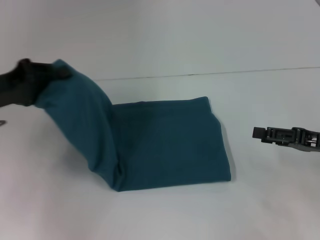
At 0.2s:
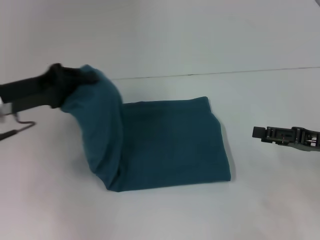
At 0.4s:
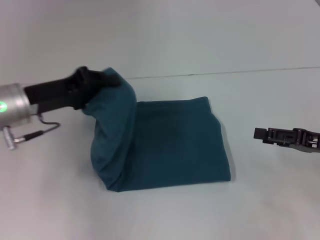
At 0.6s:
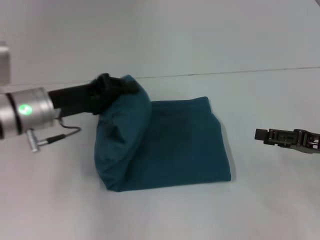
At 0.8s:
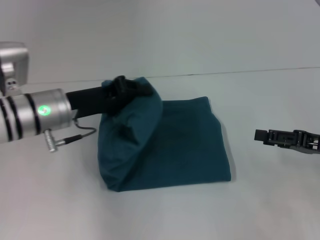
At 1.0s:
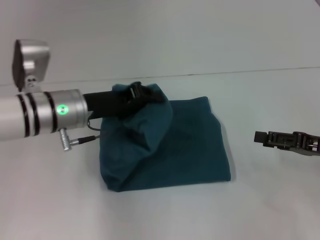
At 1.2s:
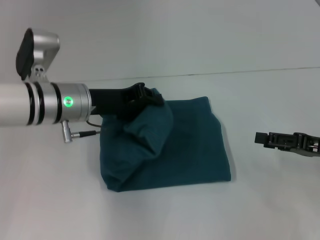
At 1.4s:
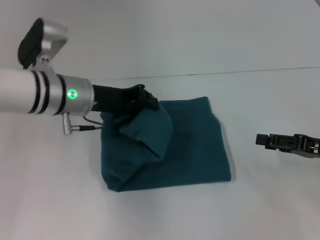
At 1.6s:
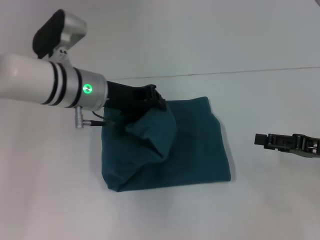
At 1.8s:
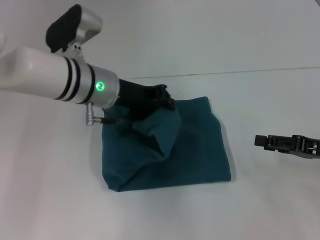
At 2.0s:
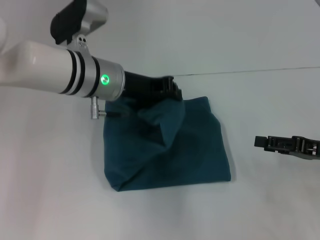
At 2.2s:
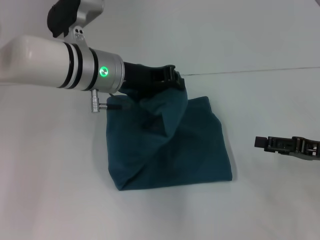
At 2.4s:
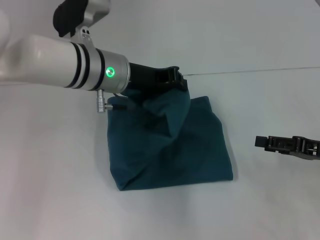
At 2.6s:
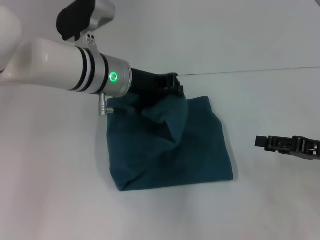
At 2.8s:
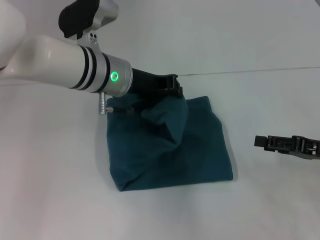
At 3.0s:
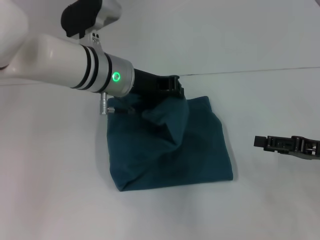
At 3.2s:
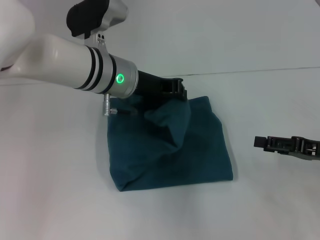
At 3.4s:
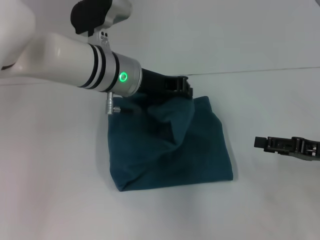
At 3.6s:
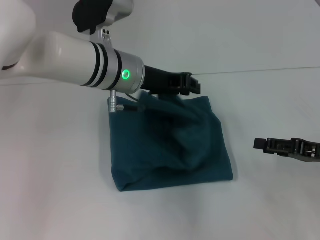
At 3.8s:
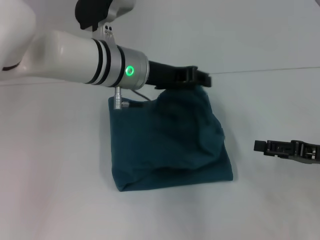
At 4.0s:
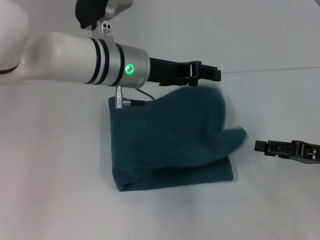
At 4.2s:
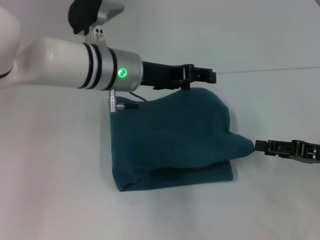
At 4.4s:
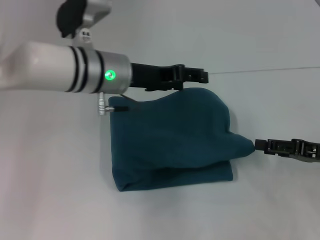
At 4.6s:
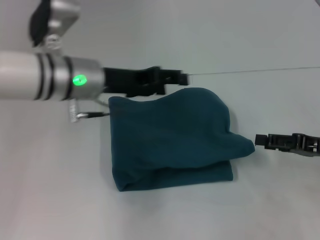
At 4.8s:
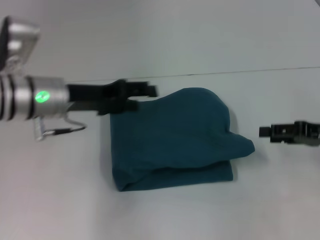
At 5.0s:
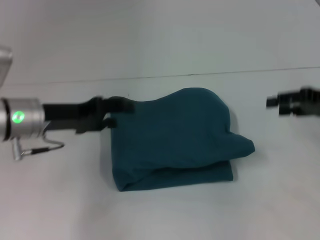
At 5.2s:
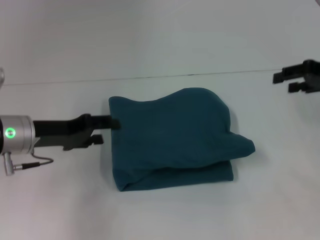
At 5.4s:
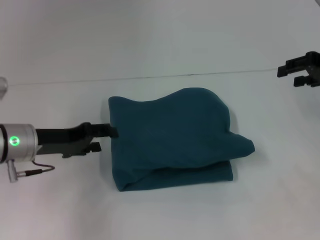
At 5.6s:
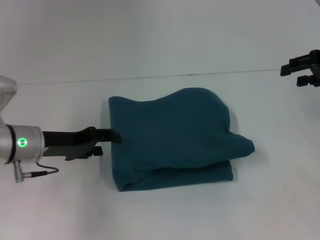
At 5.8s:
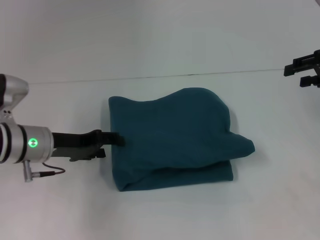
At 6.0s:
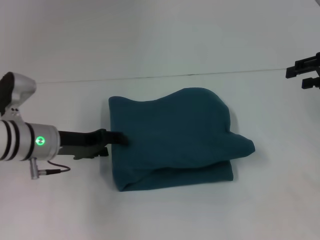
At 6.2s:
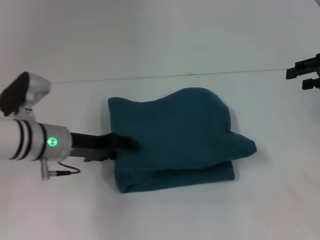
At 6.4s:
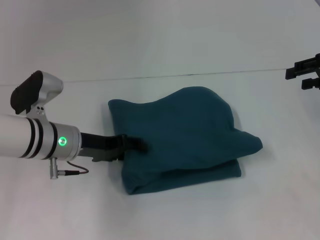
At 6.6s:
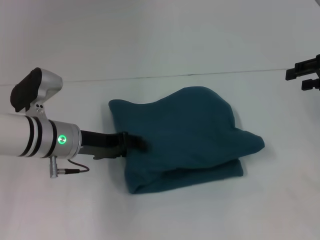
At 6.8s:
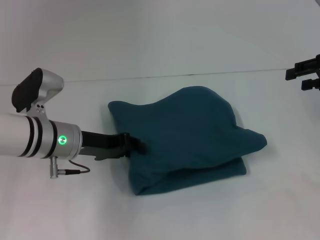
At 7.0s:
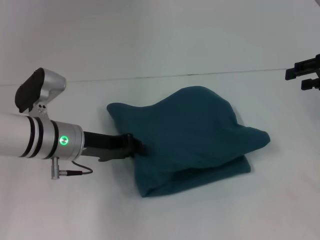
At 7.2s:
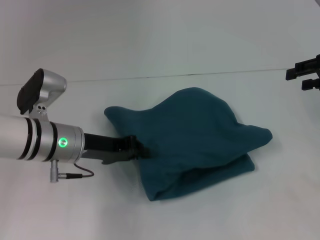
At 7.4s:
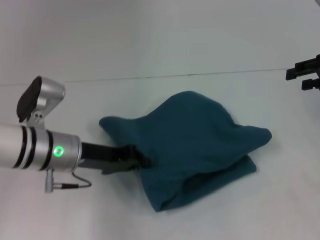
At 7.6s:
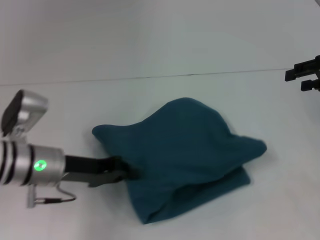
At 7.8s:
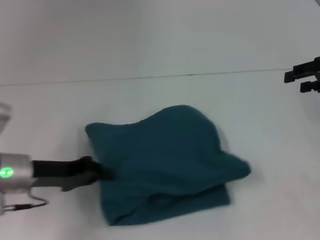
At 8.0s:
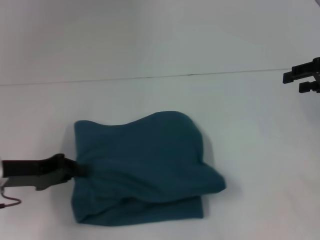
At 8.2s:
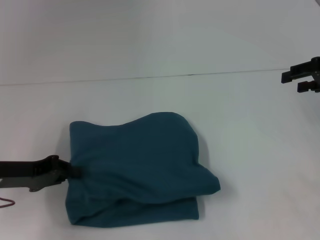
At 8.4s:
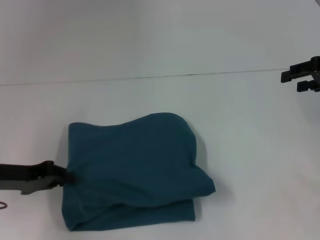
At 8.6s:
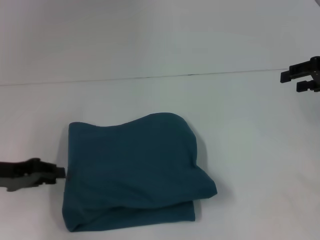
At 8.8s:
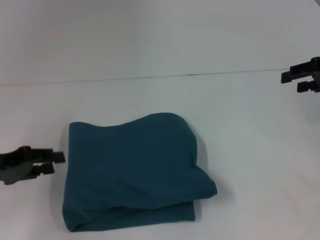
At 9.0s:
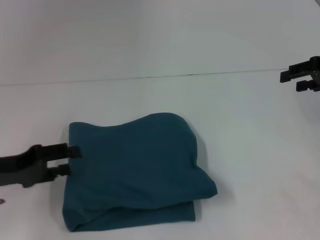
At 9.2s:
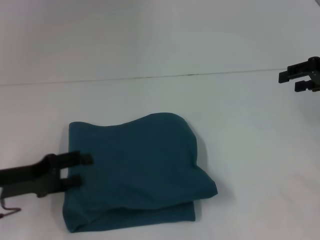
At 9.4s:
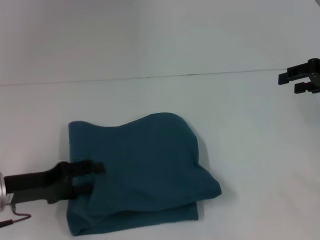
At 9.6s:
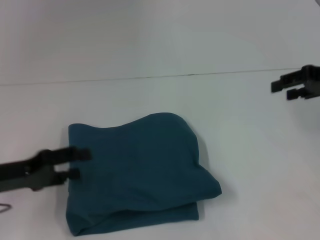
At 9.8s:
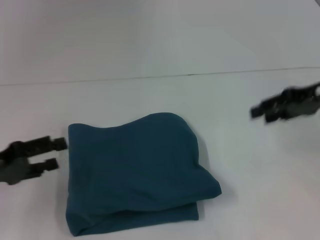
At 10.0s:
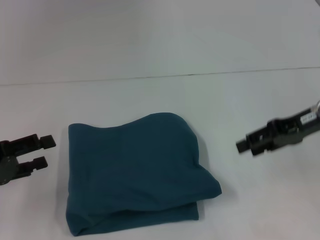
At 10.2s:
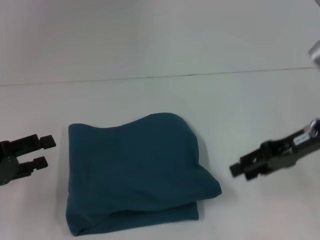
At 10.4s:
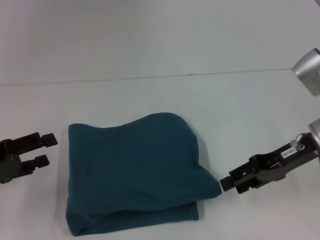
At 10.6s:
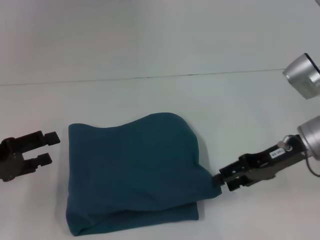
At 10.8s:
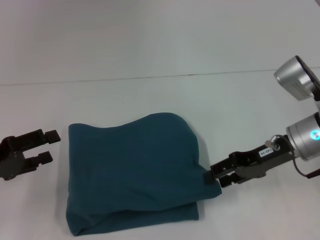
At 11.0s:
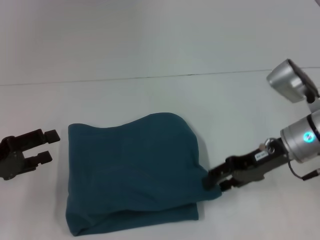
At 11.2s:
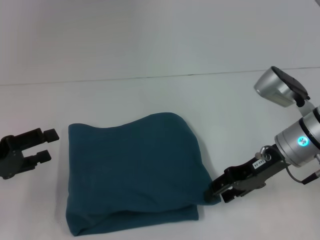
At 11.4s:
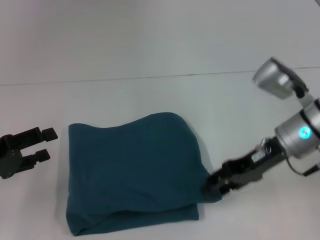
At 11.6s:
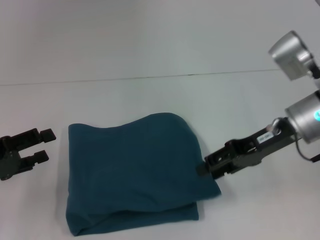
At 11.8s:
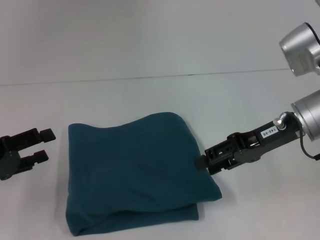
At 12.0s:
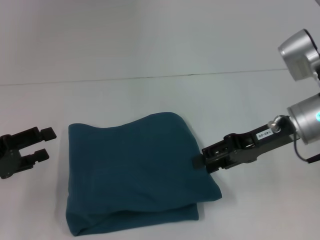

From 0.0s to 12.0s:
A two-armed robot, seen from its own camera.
Step, from 0.0s to 4.4s: Fold the clothes to the left.
From 0.0s to 1.6s: The left gripper goes approximately 15 cm to the right.
From 1.6s to 3.0s: The grippers stay close to where they were, moving slightly.
From 3.0s to 4.4s: The left gripper opens.
From 4.4s to 6.0s: The right gripper heads upward and forward, covering some 15 cm; the left gripper heads to the left and downward, covering approximately 15 cm.
From 6.0s to 7.6s: The left gripper closes its fingers.
From 7.6s to 9.0s: The left gripper goes about 10 cm to the left, and opens its fingers.
From 9.0s to 10.4s: The left gripper opens up; the right gripper is displaced to the left, downward and backward by roughly 15 cm.
From 10.4s to 12.0s: There are only small adjustments of the grippers.

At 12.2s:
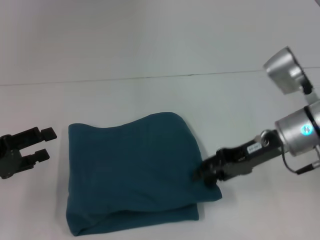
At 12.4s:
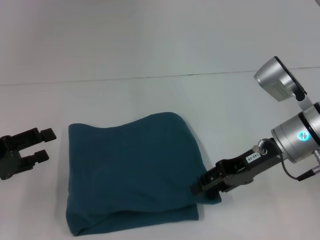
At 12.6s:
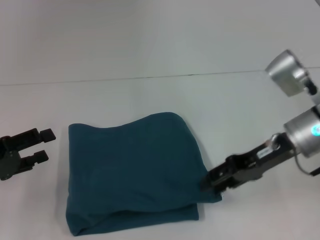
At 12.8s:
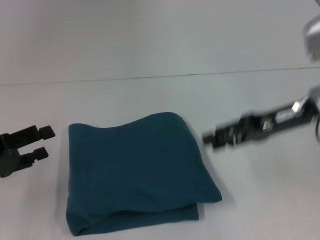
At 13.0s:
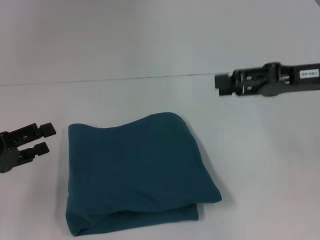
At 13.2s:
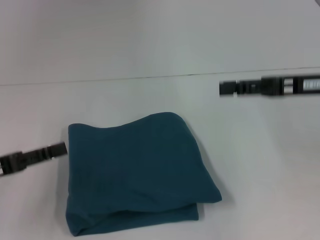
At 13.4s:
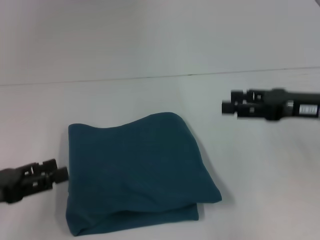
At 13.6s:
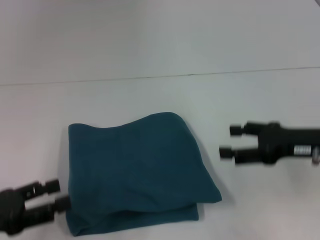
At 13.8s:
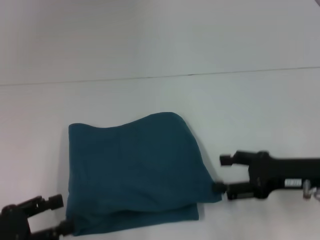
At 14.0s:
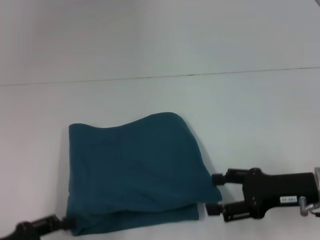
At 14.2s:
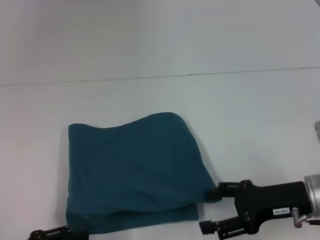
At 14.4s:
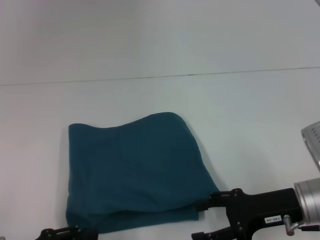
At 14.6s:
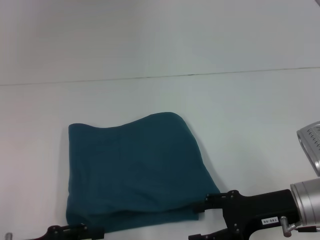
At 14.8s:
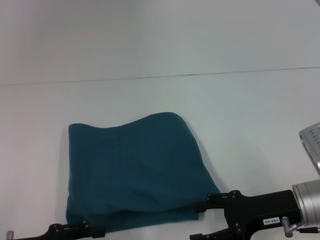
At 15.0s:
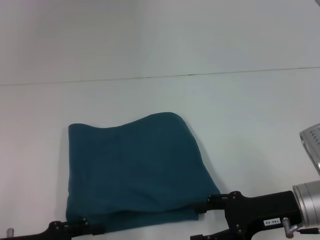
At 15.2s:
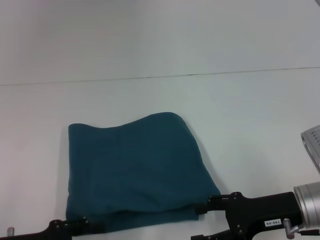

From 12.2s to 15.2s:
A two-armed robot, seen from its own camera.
From 12.2s to 13.8s: The right gripper moves backward and to the right, about 10 cm, and moves some 5 cm upward and comes back, while the left gripper travels backward by about 10 cm.
From 13.8s to 15.2s: There are only small adjustments of the grippers.

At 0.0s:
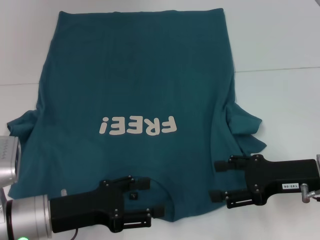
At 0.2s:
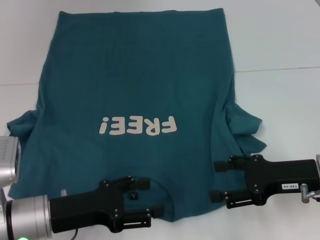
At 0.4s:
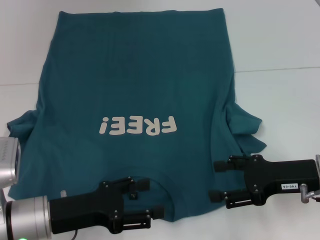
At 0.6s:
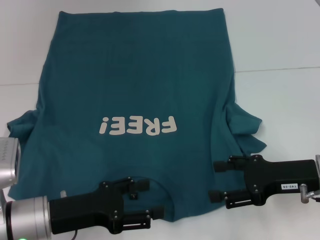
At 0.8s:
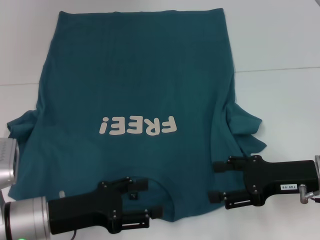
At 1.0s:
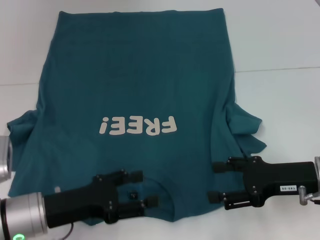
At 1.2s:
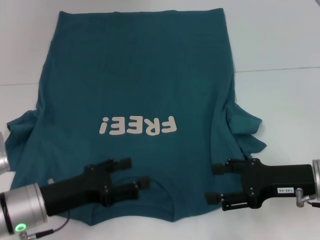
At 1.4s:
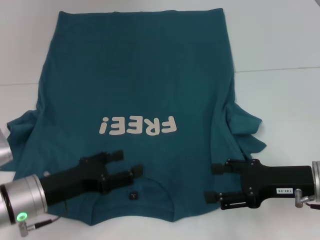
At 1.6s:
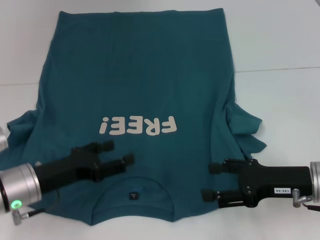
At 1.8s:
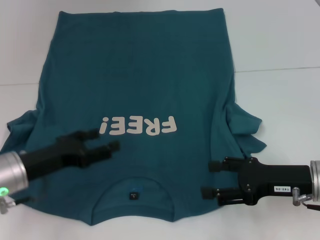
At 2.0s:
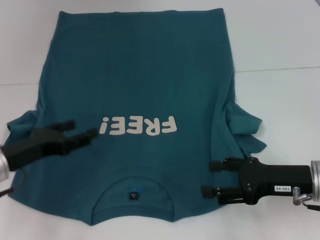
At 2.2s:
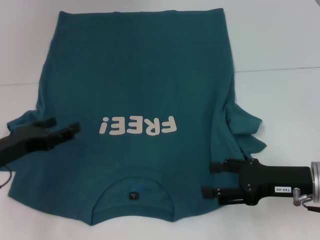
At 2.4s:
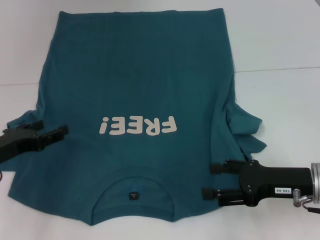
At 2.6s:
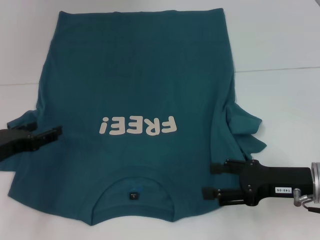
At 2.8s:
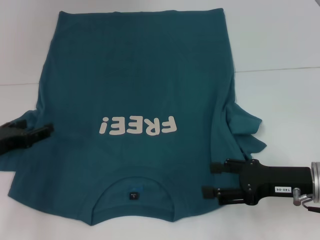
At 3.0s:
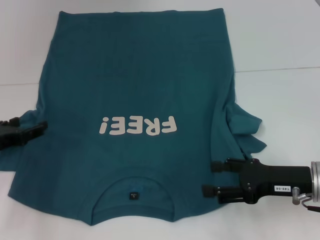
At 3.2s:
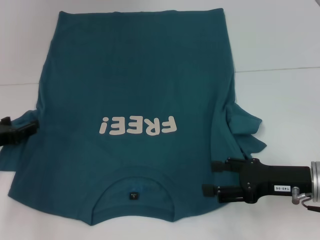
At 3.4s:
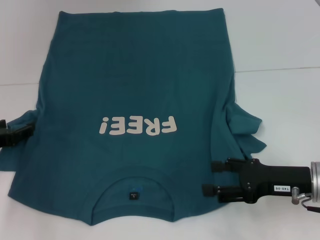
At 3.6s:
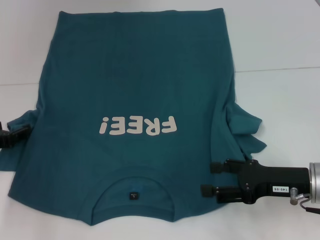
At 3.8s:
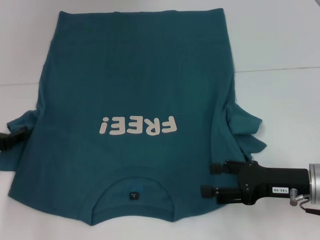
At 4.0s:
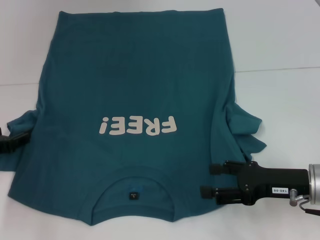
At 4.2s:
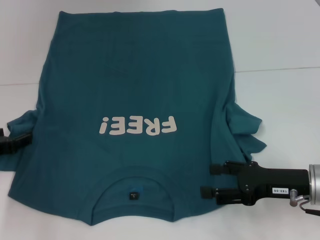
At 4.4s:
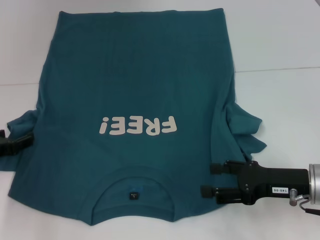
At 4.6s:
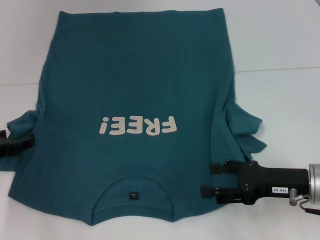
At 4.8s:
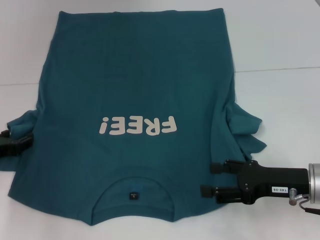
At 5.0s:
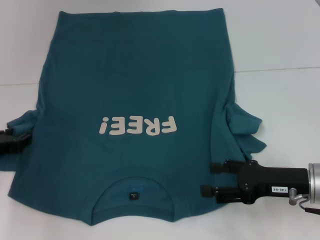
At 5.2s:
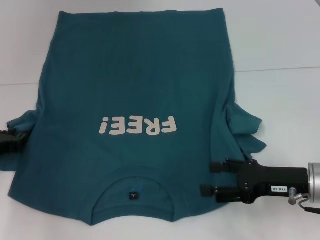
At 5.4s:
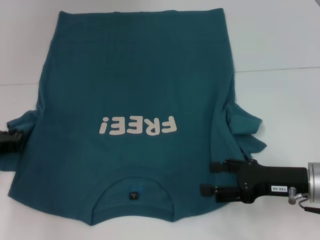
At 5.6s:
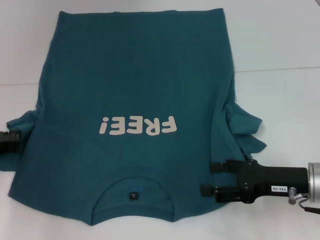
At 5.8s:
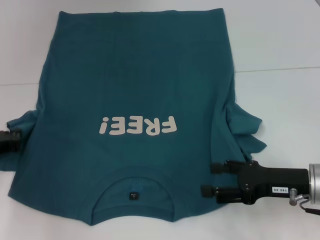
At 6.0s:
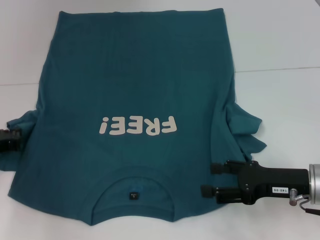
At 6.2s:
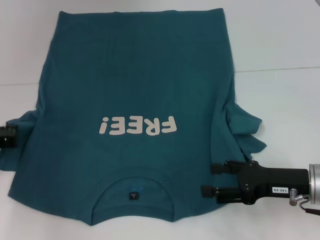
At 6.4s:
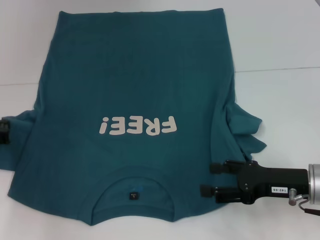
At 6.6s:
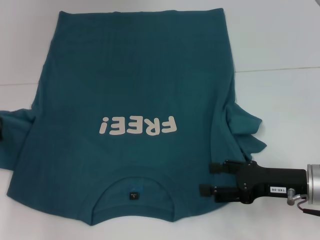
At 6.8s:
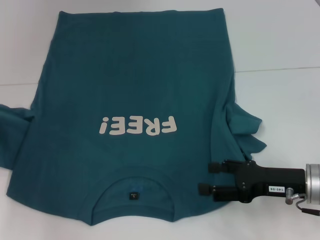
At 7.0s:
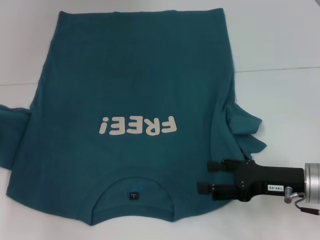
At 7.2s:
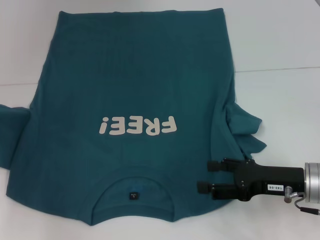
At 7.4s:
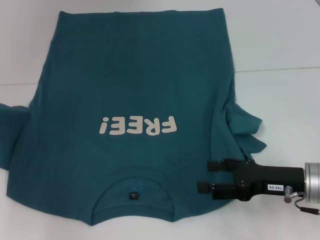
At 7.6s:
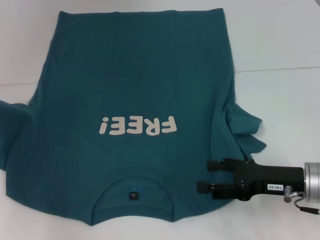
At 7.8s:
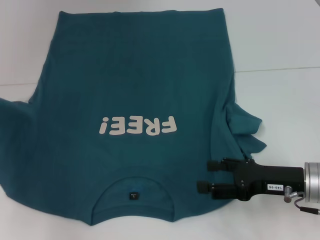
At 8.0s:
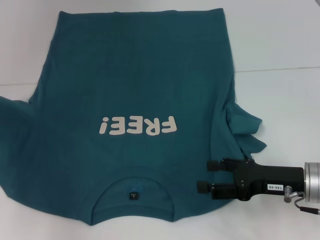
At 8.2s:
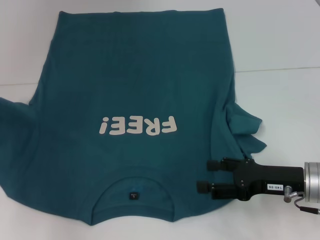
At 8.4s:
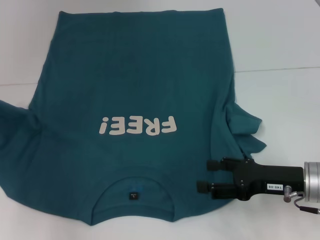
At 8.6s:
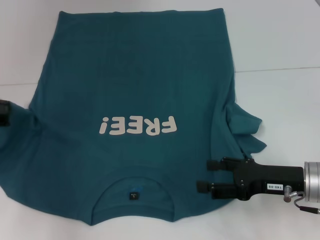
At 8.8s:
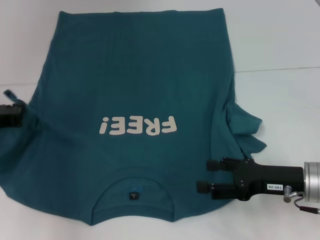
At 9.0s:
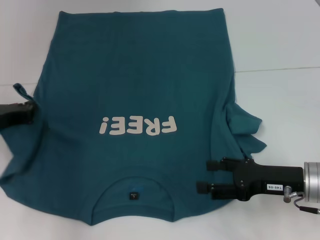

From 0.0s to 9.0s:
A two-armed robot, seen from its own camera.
From 0.0s to 1.6s: The grippers make only small movements.
From 1.6s to 3.0s: The left gripper is displaced to the left by about 10 cm.
From 3.0s to 4.4s: The grippers stay close to where they were, moving slightly.
From 6.0s to 7.6s: The left gripper shifts by about 5 cm.
From 7.6s to 9.0s: The left gripper moves approximately 5 cm.
